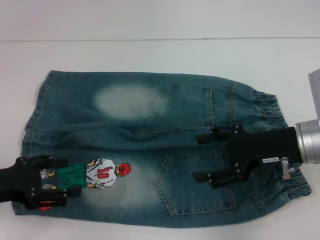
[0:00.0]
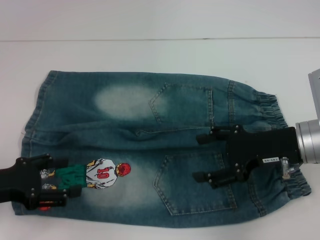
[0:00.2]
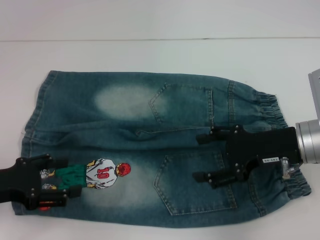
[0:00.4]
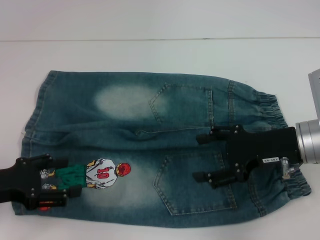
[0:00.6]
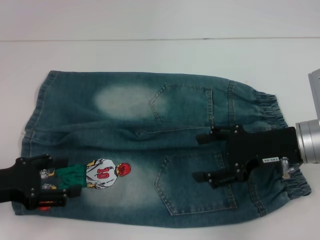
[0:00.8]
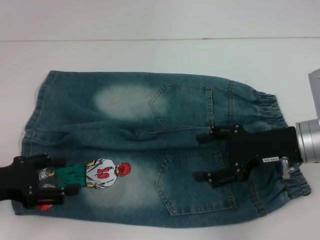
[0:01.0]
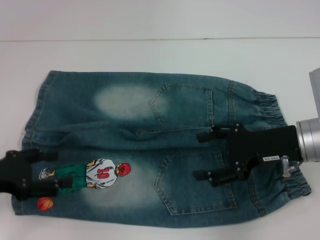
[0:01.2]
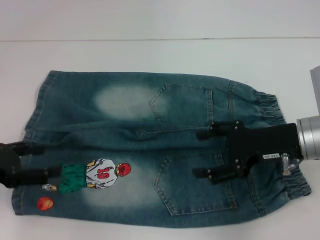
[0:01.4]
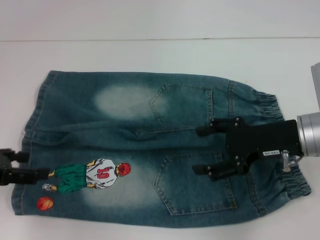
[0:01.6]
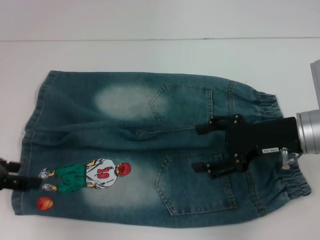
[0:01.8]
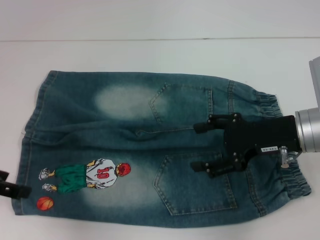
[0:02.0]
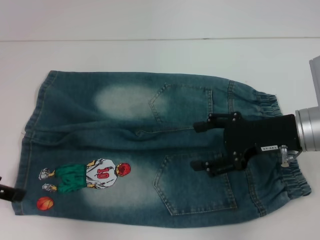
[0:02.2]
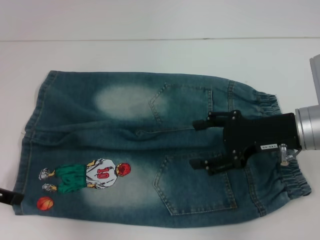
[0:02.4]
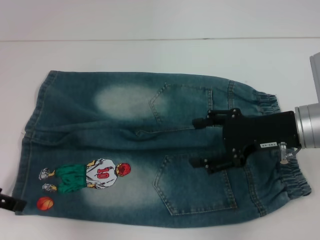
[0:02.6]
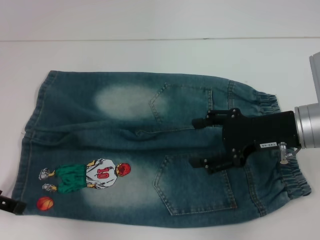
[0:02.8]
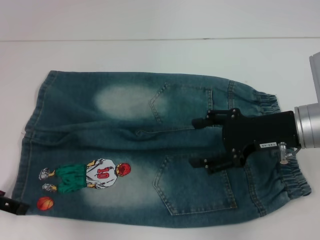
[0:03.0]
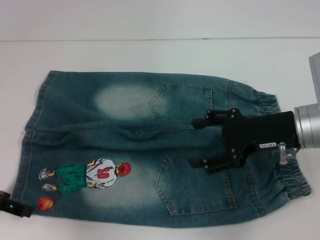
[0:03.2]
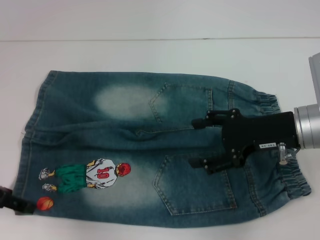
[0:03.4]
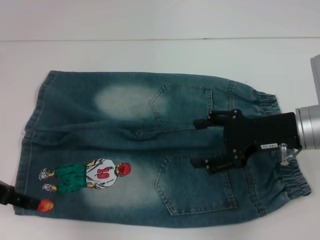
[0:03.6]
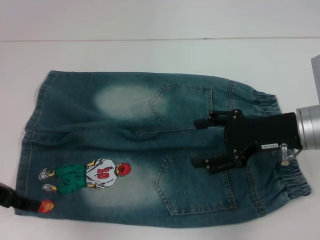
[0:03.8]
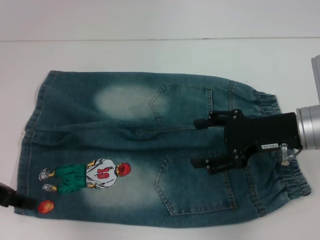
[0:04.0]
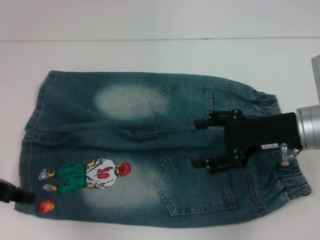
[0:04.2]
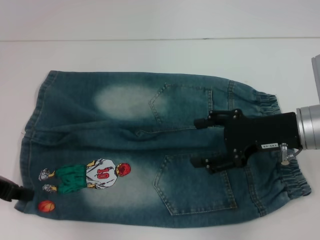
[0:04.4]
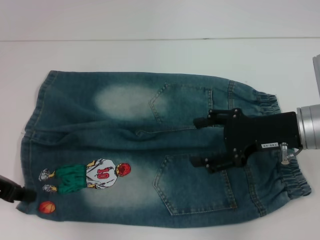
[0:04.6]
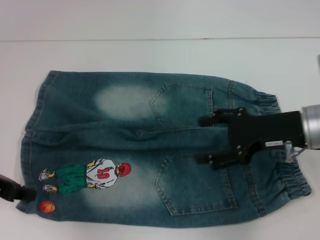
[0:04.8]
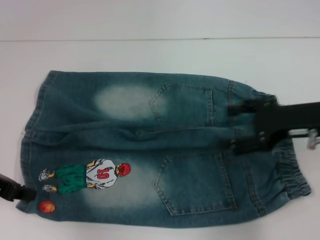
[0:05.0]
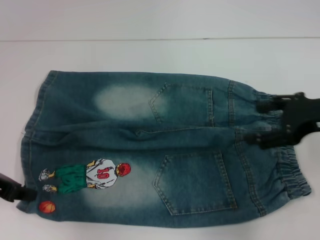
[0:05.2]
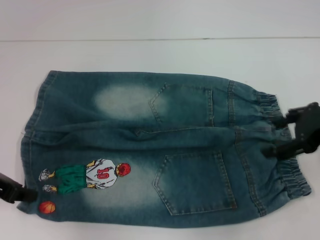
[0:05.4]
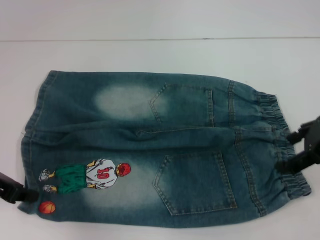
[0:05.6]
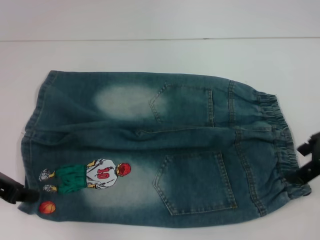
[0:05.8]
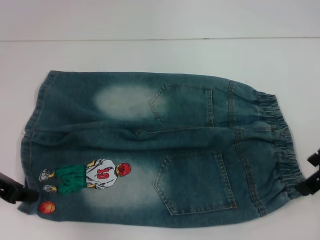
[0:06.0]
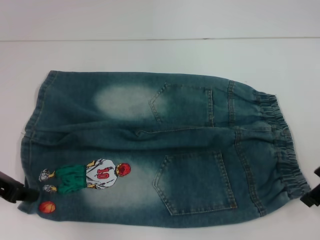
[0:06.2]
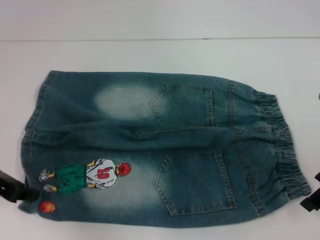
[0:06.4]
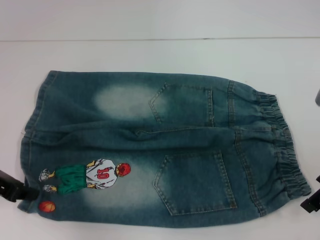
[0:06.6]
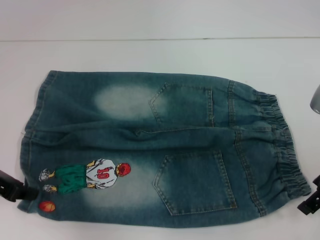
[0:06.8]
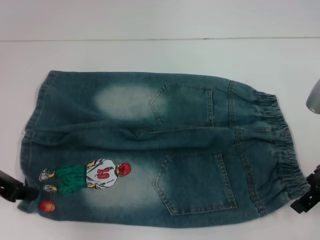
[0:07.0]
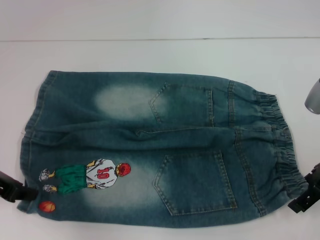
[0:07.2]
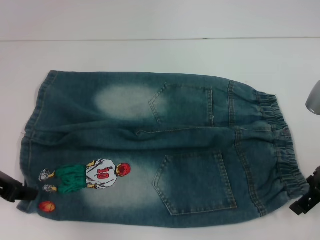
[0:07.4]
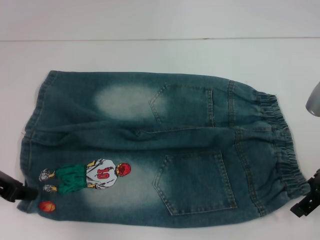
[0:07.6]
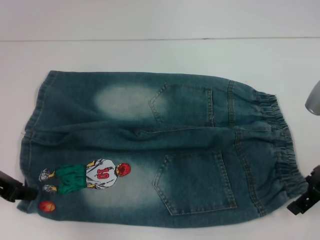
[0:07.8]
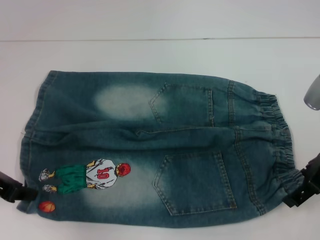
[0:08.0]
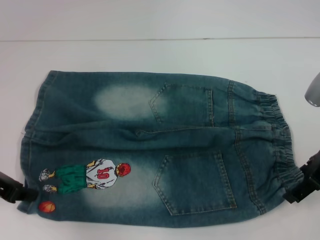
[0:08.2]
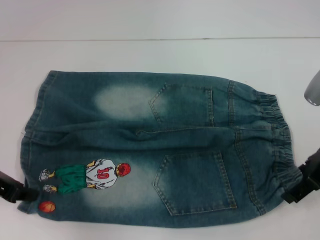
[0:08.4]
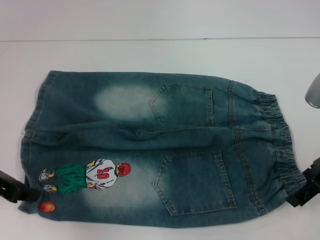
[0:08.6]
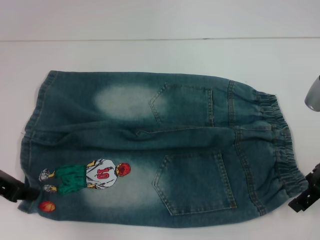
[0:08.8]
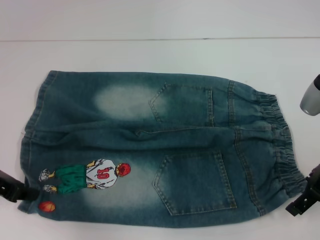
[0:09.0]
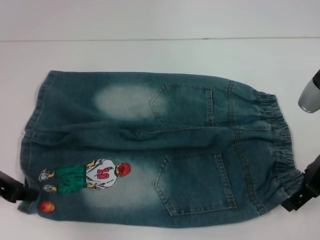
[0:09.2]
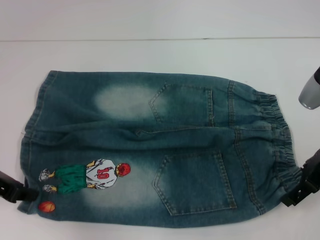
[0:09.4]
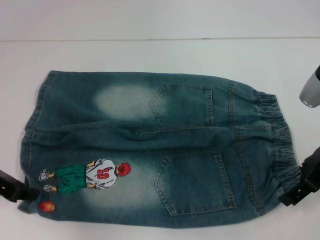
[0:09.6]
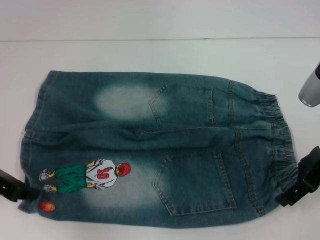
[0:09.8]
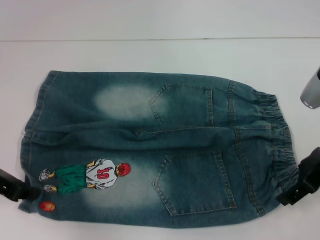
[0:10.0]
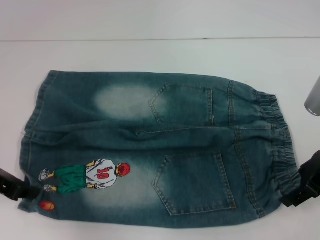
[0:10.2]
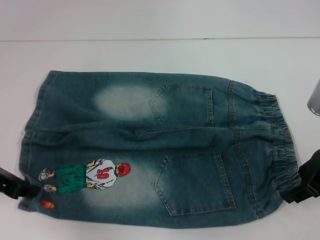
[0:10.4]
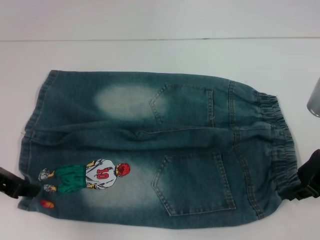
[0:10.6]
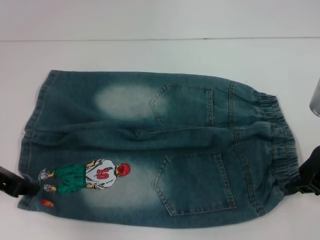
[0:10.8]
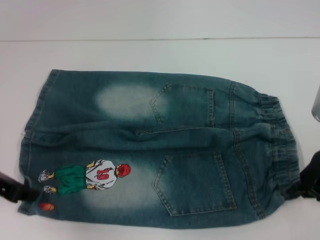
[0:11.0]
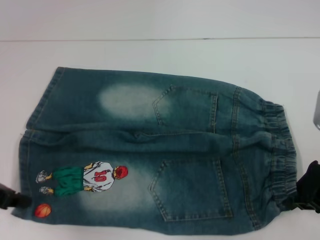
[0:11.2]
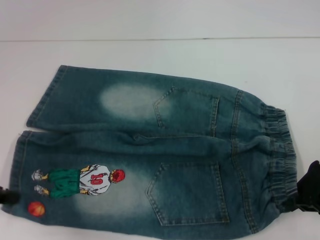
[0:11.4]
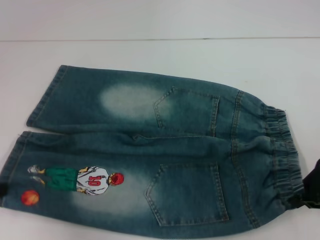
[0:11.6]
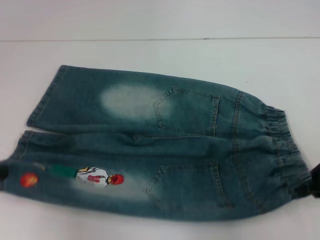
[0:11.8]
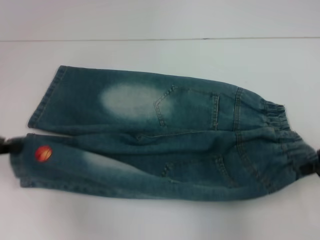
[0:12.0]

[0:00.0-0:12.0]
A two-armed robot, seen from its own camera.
Step, 0:00.0 to 0:04.8: Grab the lower left pant leg with your left hand.
Step, 0:05.0 to 0:11.0: Hold the lower right waistband with your right hand.
0:00.0 to 0:01.6: The left gripper ends up approximately 5 cm from where it was.
0:03.0 to 0:04.4: The left gripper closes up.
0:04.4 to 0:06.0: The right gripper heads upward and to the right, covering about 10 cm.
0:06.0 to 0:10.4: There are only small adjustments of the grippers.
0:10.4 to 0:12.0: The right gripper shifts by about 5 cm, and closes; the left gripper shifts by roughly 5 cm.

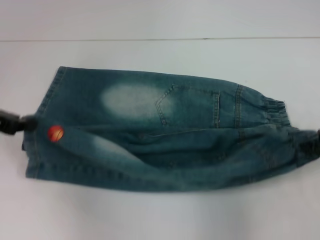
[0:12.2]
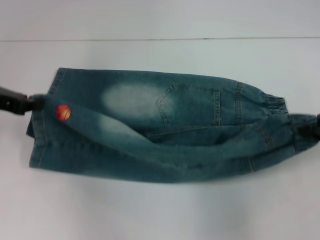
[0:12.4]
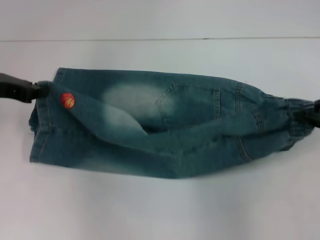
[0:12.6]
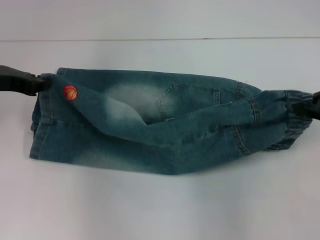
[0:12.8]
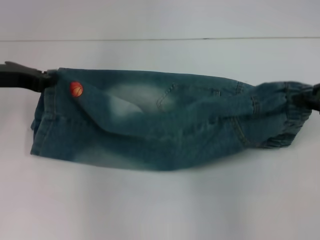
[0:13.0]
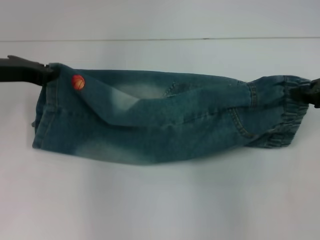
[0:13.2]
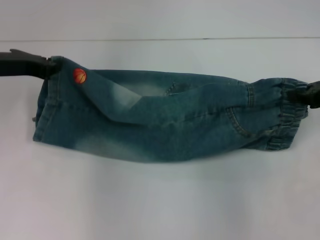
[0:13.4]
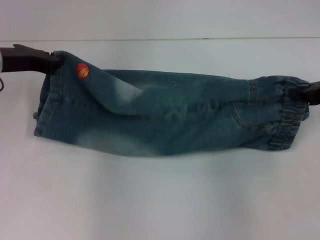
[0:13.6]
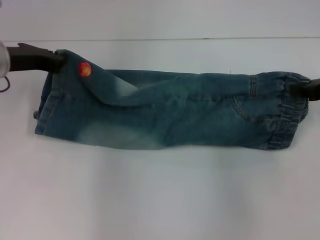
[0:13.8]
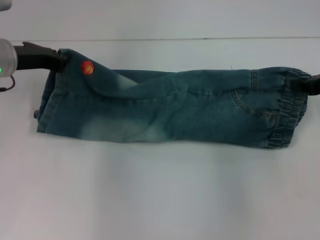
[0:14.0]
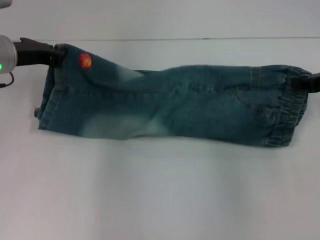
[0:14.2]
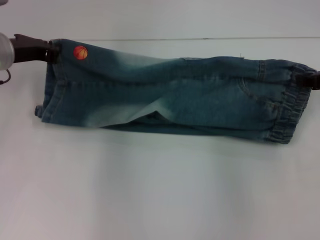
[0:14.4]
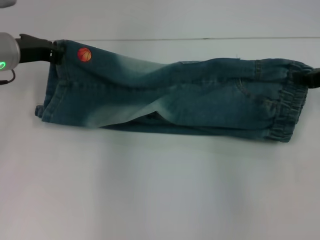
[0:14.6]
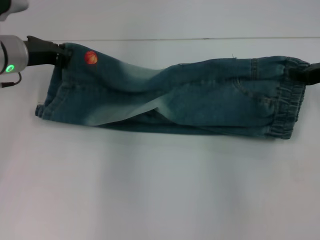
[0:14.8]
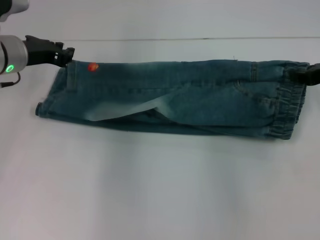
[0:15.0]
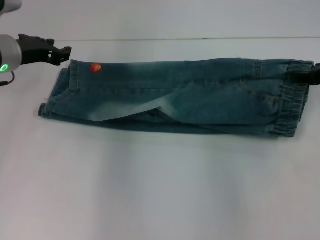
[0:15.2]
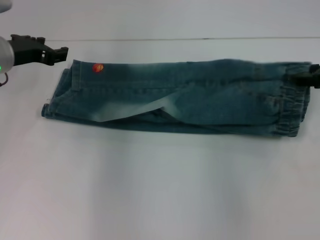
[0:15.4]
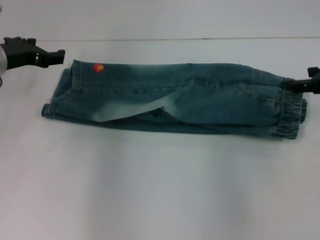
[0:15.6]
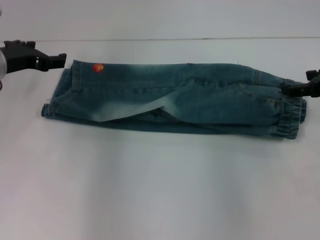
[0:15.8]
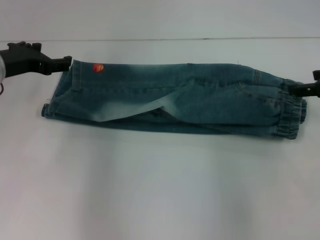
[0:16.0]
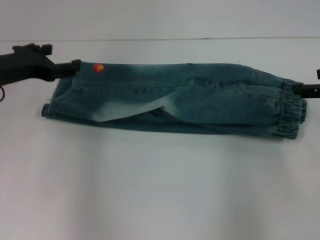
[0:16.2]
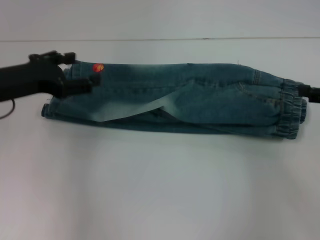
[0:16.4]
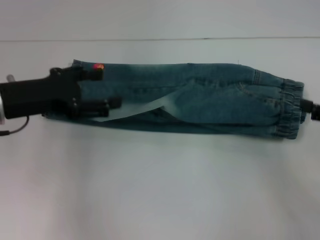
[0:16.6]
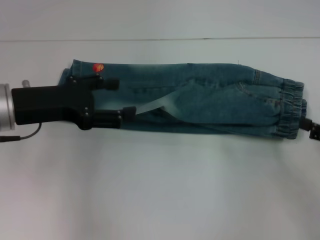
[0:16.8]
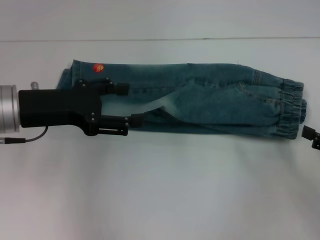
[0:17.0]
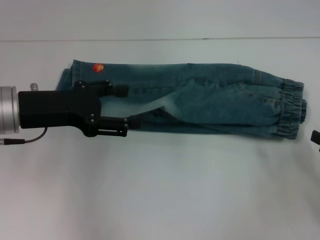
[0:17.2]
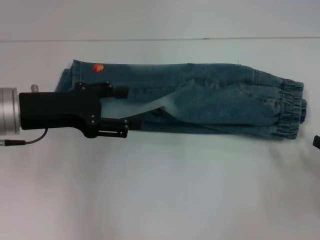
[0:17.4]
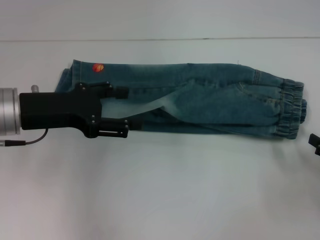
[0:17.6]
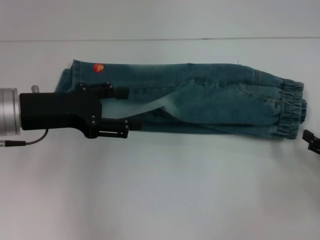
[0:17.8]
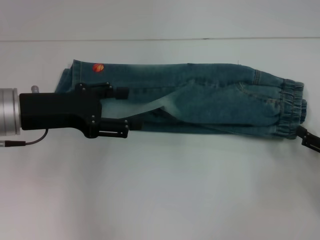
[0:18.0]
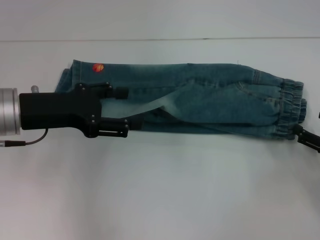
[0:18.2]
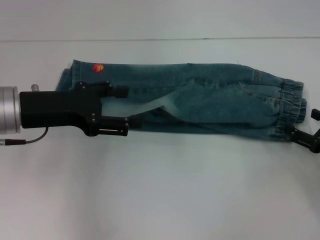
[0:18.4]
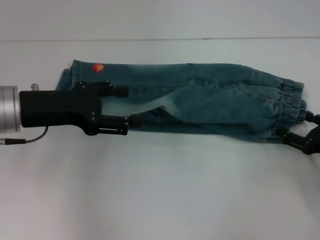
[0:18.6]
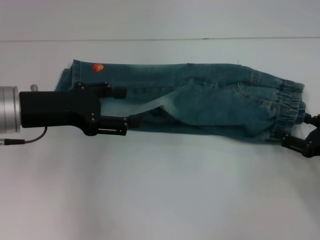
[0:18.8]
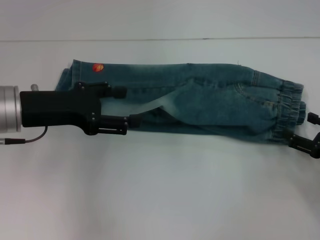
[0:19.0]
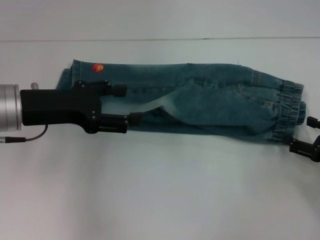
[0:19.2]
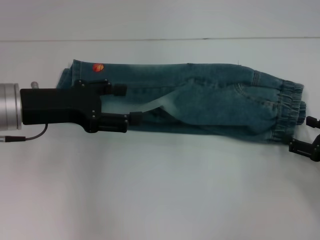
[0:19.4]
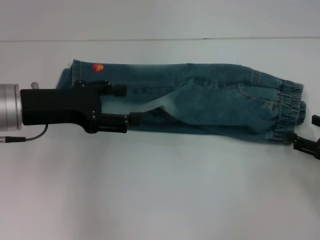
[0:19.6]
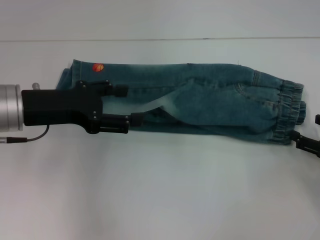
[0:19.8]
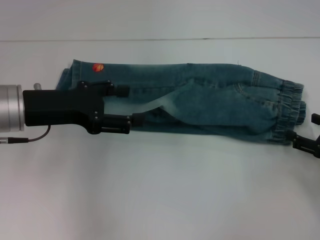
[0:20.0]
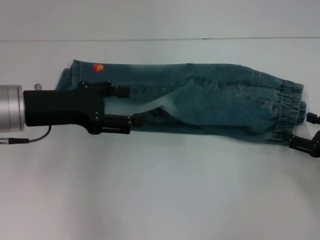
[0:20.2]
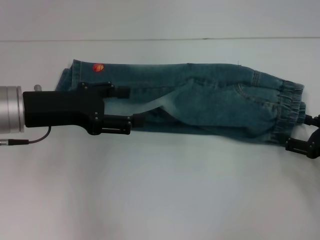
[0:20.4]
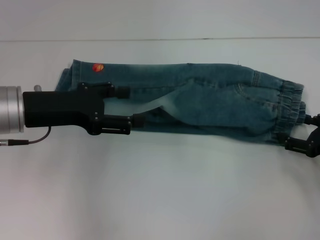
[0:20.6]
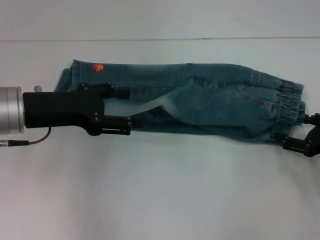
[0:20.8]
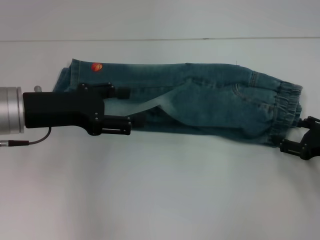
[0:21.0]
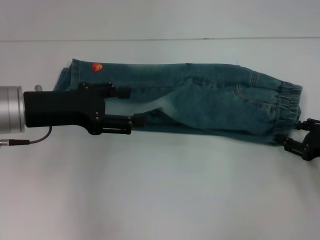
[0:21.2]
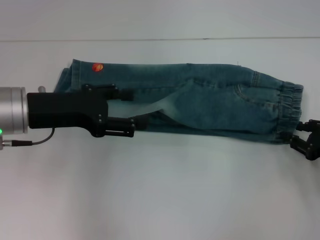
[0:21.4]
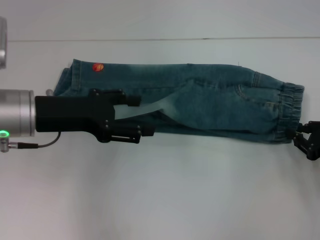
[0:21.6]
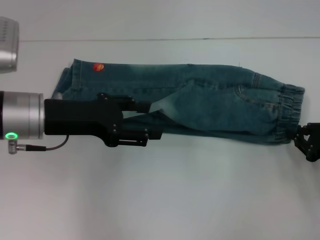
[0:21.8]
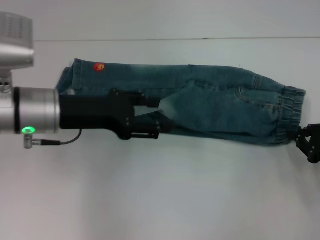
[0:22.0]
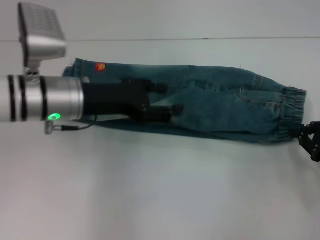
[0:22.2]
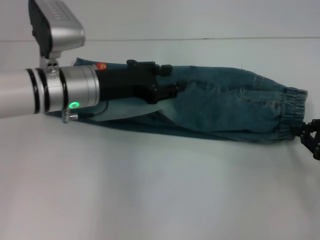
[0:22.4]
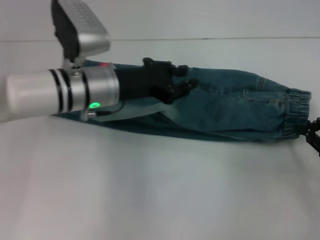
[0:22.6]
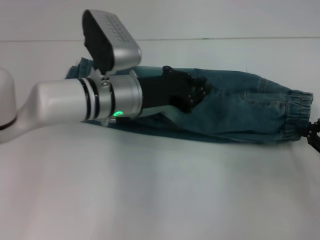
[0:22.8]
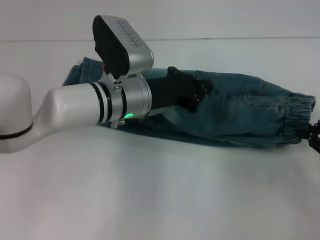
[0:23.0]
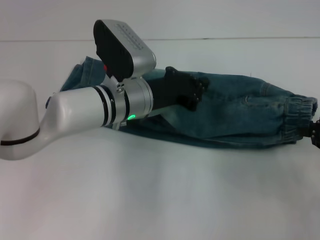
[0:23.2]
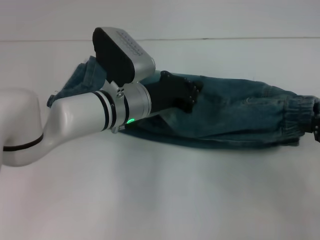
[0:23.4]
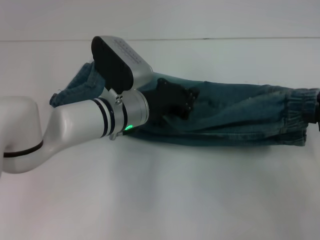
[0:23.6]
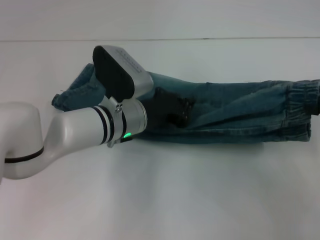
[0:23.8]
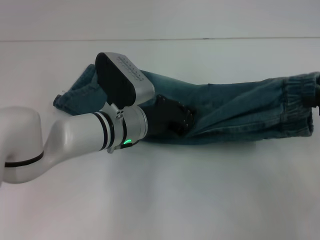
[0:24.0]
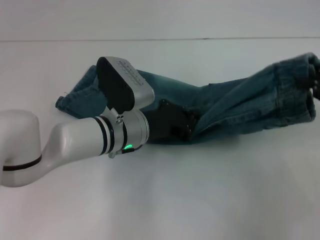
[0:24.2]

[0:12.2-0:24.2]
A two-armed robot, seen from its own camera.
Step, 0:12.2 to 0:14.8: Fold upward with your left hand.
Step, 0:15.0 to 0:15.4: Fold upward with your right hand.
Step, 0:15.6 to 0:22.2: Grab the waistband with your right hand.
0:12.2 to 0:13.8: The left gripper shifts approximately 10 cm forward and to the right, while the right gripper is displaced forward by about 5 cm.
0:13.8 to 0:15.2: The grippers make only small movements.
0:15.2 to 0:16.6: The two grippers go approximately 10 cm backward. The right gripper opens; the left gripper opens.
0:16.6 to 0:18.2: The right gripper travels downward by about 10 cm.
0:18.2 to 0:21.2: The grippers stay close to where they were, moving slightly.
0:21.2 to 0:22.6: The left gripper heads to the right and forward, covering some 10 cm, while the right gripper closes its fingers.
0:22.6 to 0:24.2: The right gripper heads upward, covering about 10 cm; the left gripper travels downward by about 5 cm, and closes up.
